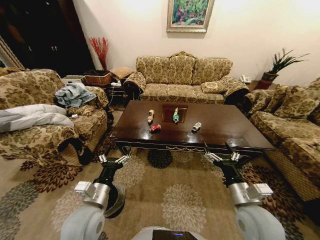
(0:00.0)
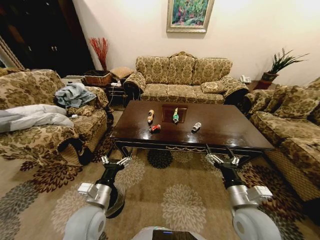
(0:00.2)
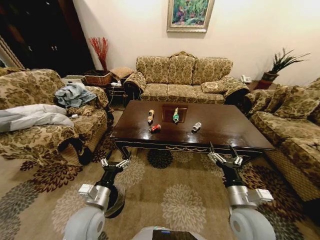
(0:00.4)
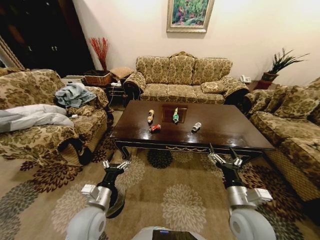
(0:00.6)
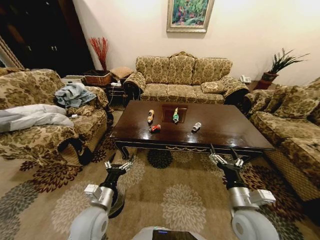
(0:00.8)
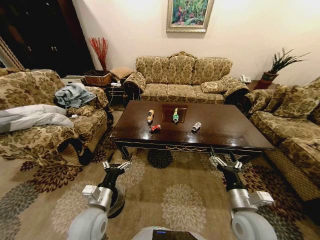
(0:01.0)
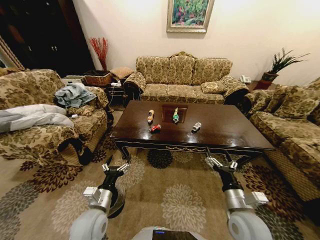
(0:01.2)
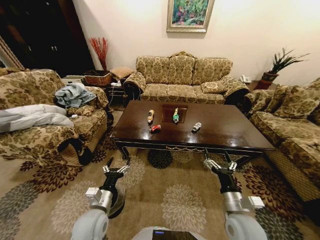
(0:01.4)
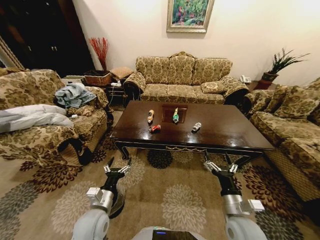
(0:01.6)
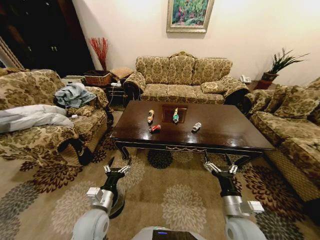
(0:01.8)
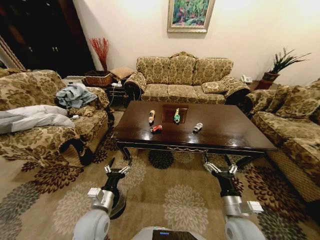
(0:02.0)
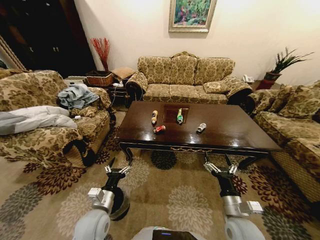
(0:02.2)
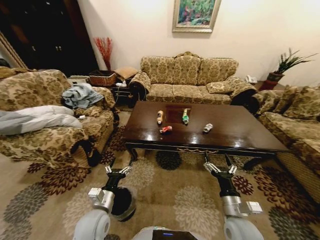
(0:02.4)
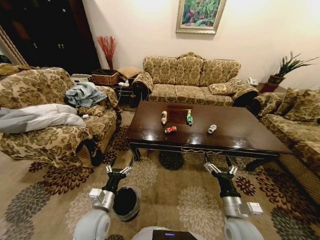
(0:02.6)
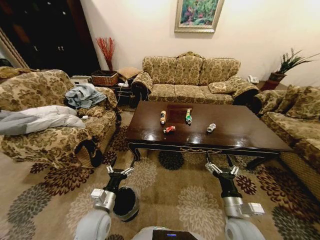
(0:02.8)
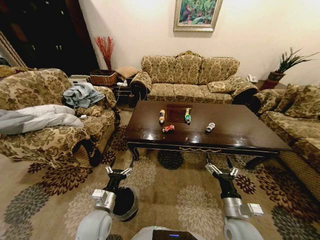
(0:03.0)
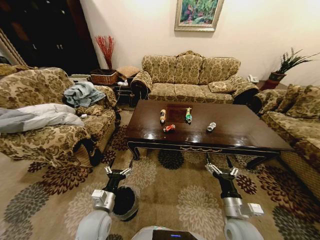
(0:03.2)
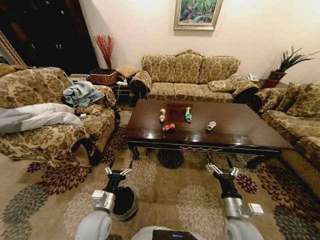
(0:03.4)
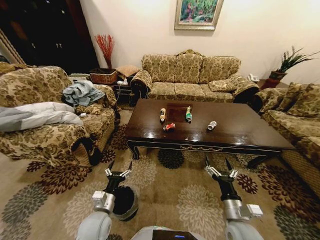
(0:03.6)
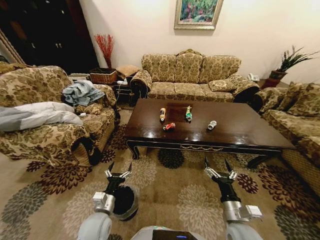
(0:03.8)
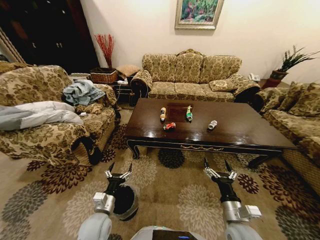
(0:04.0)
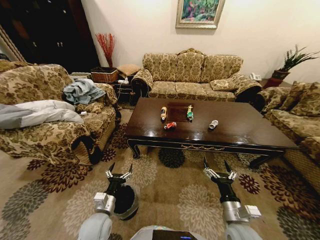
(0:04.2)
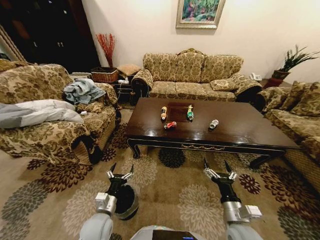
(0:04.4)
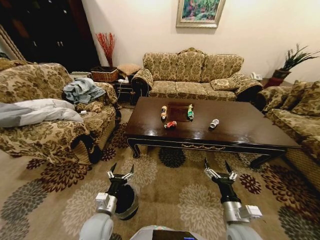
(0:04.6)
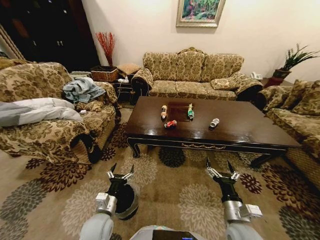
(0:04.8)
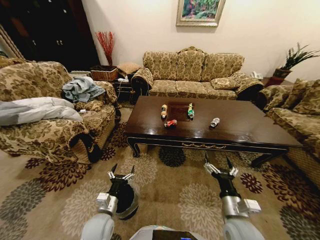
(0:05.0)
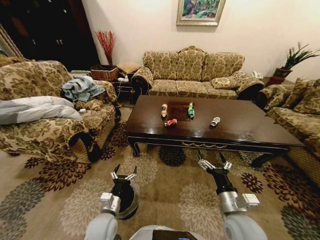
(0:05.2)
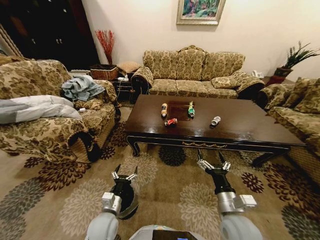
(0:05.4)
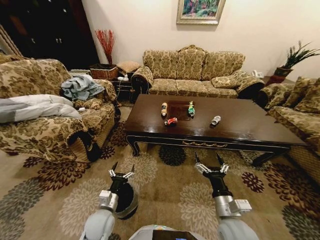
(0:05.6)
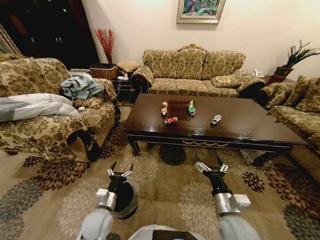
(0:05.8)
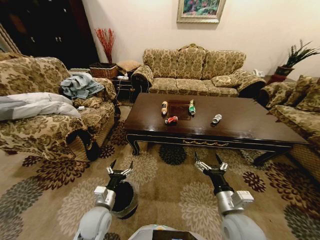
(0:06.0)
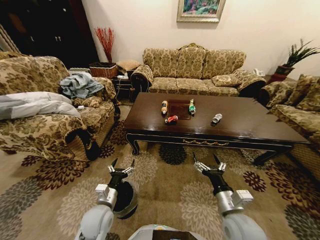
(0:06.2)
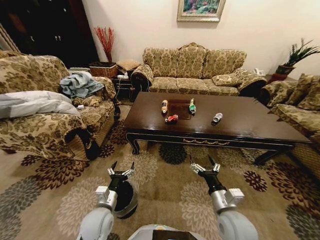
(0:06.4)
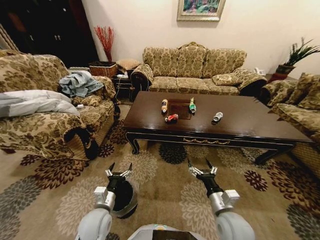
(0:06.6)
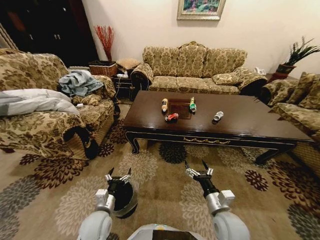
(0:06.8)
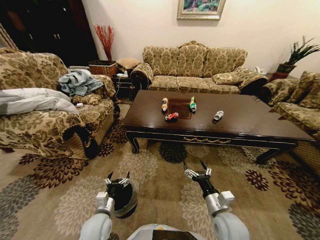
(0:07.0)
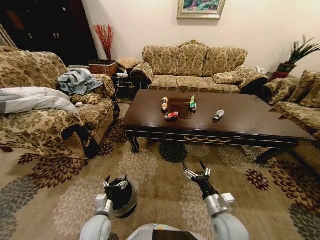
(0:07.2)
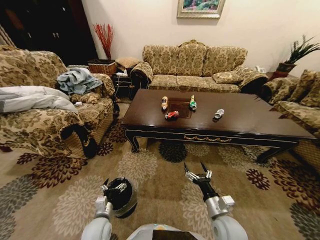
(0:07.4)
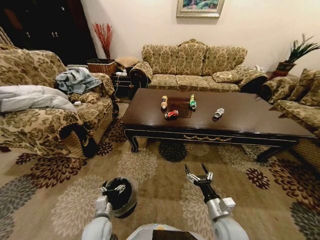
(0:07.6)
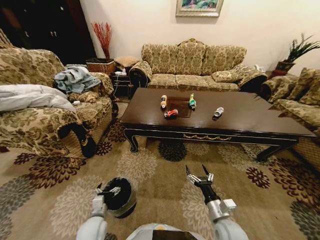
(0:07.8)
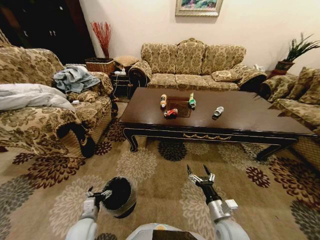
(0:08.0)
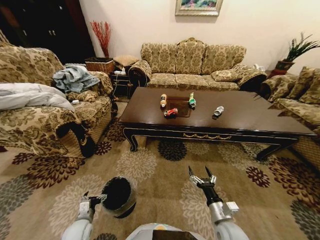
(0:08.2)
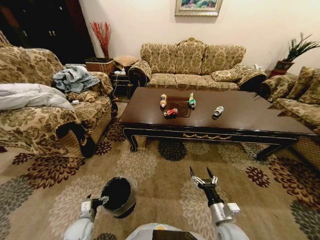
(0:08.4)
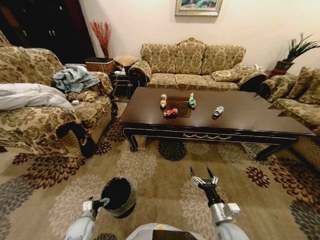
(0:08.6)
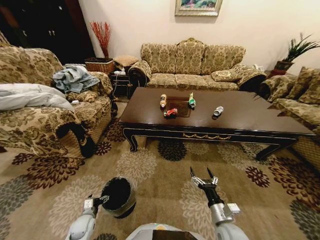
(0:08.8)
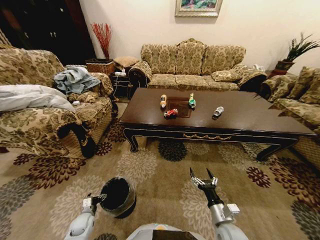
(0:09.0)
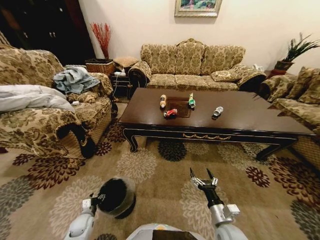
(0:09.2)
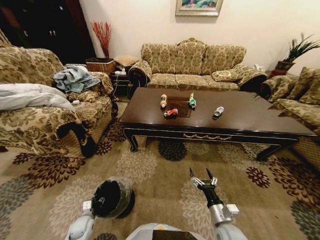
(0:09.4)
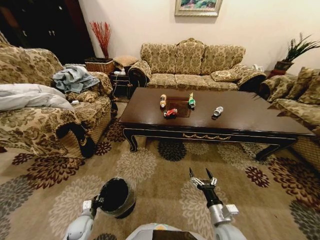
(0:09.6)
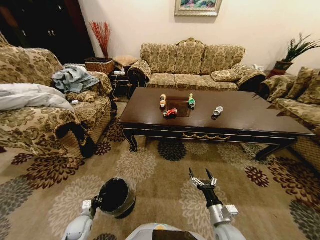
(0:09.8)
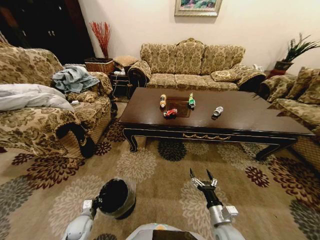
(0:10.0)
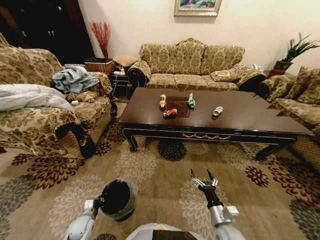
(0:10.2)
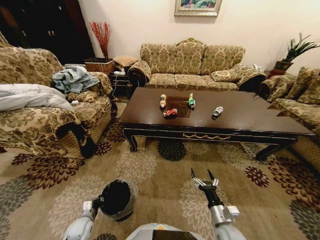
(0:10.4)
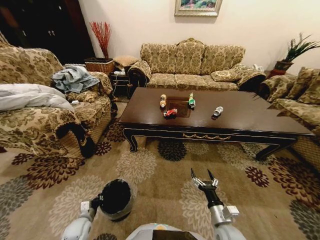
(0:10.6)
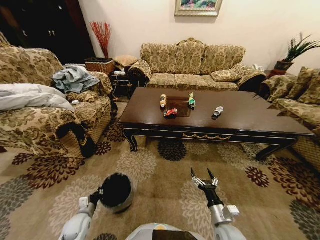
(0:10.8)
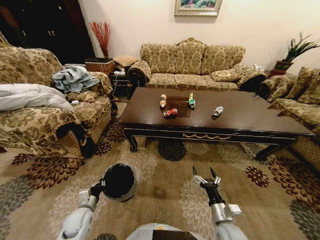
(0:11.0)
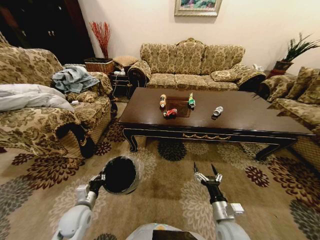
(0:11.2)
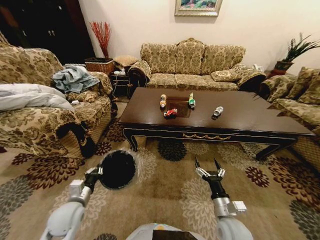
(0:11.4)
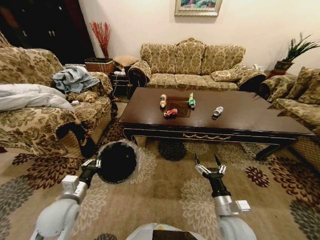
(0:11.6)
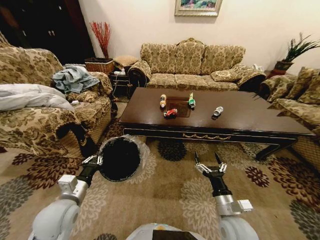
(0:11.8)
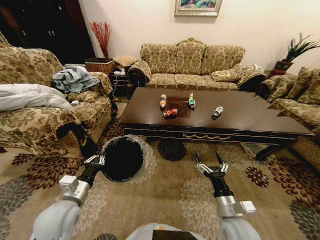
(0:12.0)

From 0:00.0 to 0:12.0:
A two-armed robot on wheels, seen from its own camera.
Task of the whole recording: Move to the front of the table and place the trash on the table into the trash bin.
From 0:04.4 to 0:06.0: The right gripper heads upward, covering approximately 5 cm.
From 0:06.0 to 0:07.6: The grippers both shift downward by about 10 cm.
From 0:07.6 to 0:09.0: The left gripper moves to the left and downward, about 20 cm.
From 0:09.0 to 0:10.4: The left gripper closes up.
From 0:10.4 to 0:12.0: The right gripper is displaced upward by some 10 cm, while the left gripper goes some 25 cm upward.

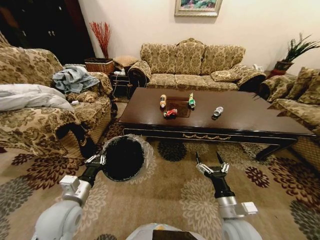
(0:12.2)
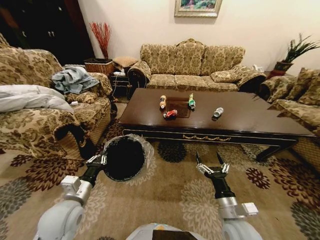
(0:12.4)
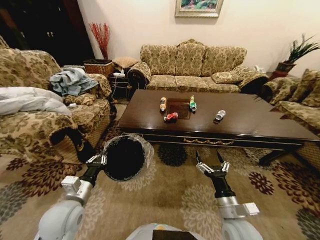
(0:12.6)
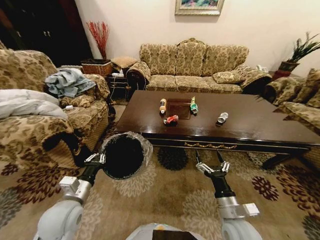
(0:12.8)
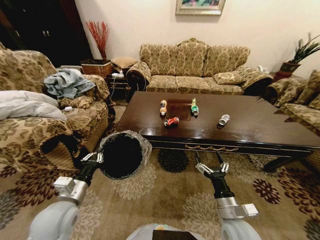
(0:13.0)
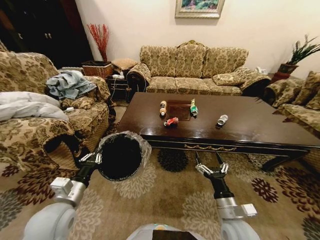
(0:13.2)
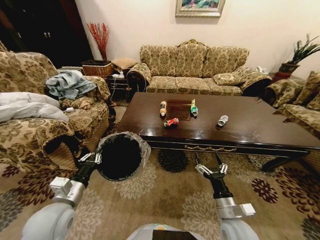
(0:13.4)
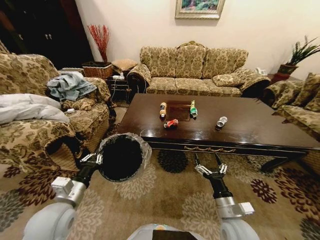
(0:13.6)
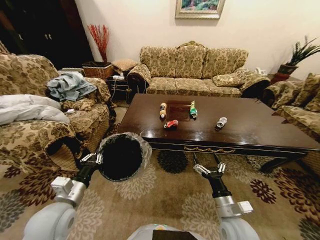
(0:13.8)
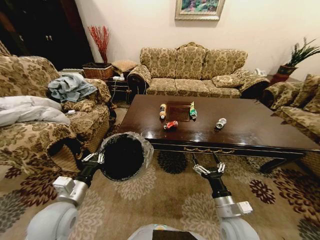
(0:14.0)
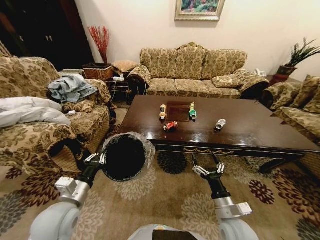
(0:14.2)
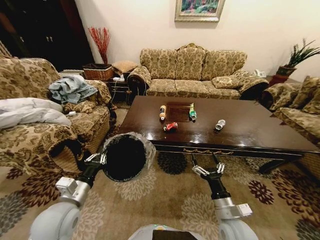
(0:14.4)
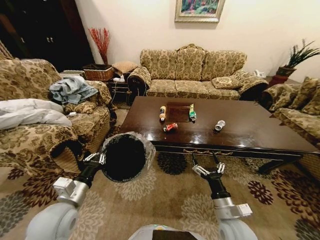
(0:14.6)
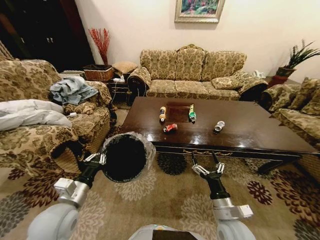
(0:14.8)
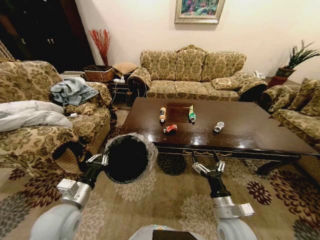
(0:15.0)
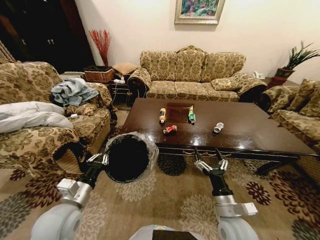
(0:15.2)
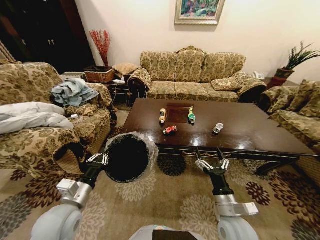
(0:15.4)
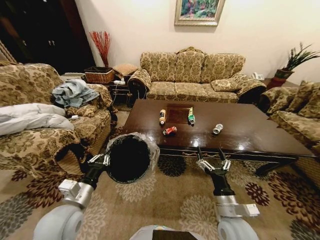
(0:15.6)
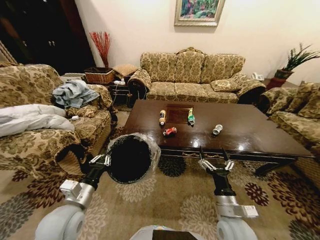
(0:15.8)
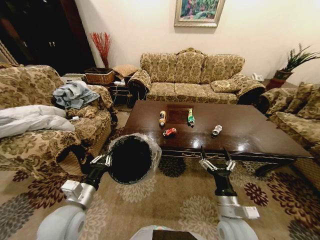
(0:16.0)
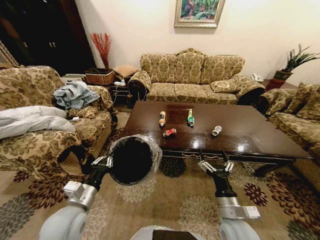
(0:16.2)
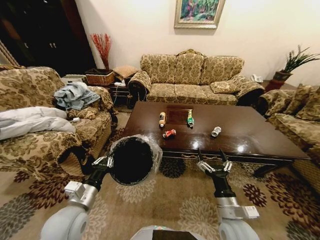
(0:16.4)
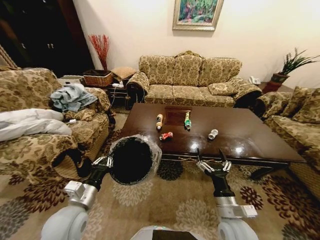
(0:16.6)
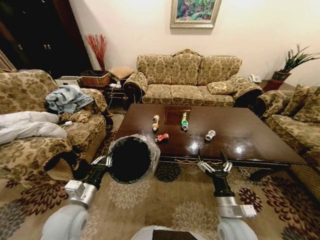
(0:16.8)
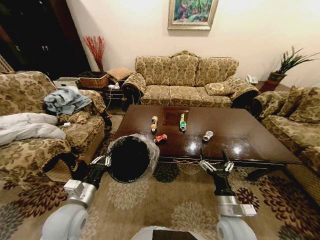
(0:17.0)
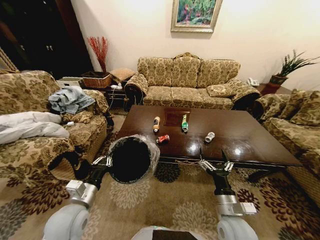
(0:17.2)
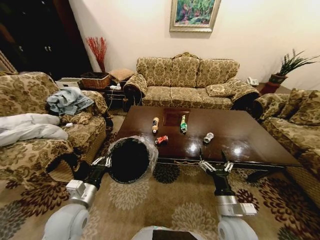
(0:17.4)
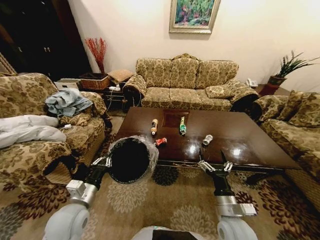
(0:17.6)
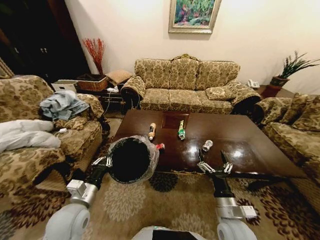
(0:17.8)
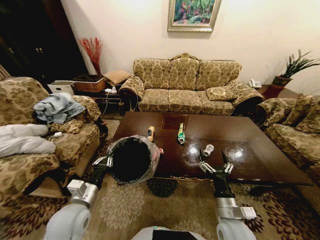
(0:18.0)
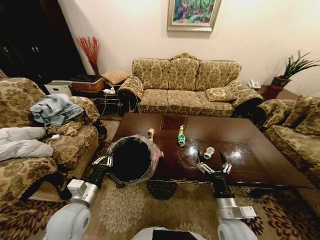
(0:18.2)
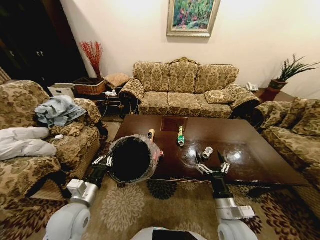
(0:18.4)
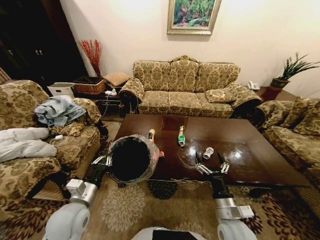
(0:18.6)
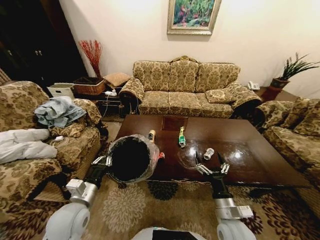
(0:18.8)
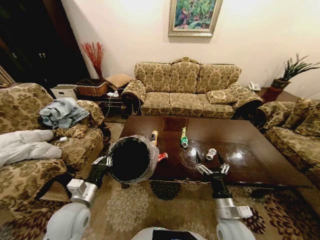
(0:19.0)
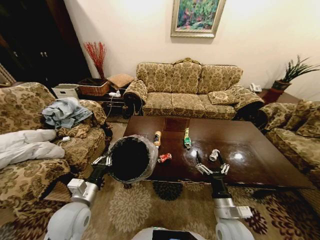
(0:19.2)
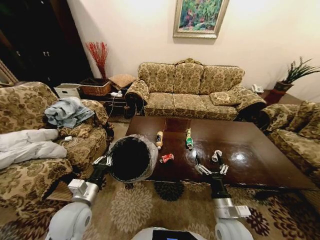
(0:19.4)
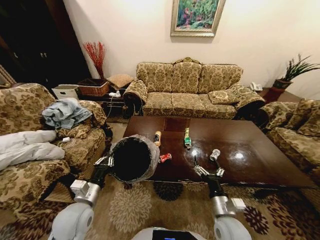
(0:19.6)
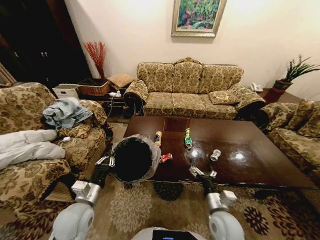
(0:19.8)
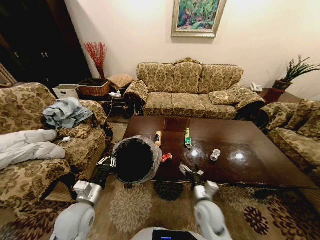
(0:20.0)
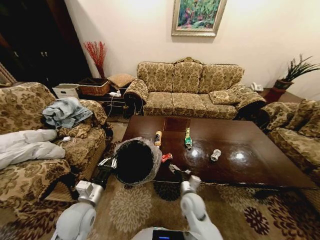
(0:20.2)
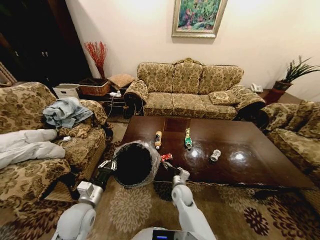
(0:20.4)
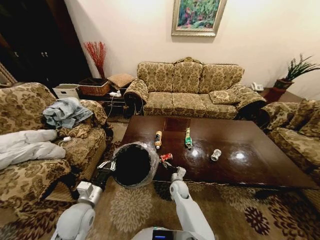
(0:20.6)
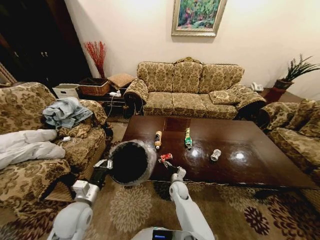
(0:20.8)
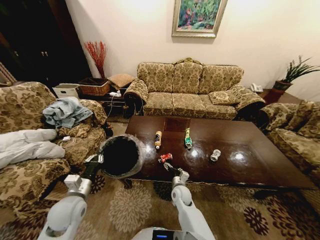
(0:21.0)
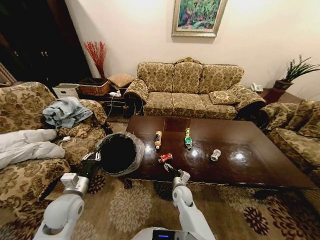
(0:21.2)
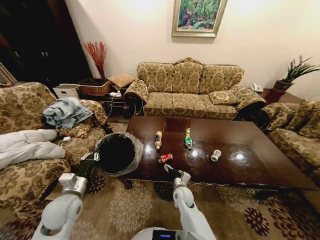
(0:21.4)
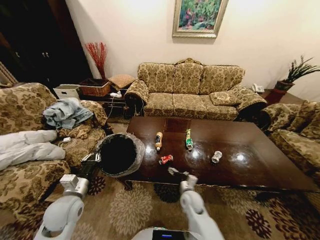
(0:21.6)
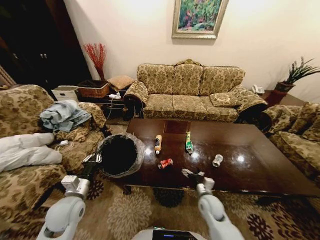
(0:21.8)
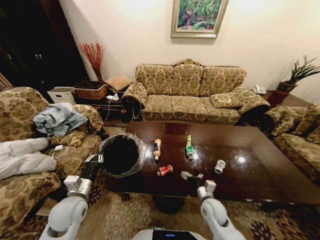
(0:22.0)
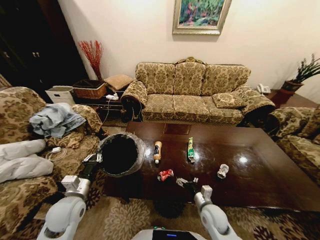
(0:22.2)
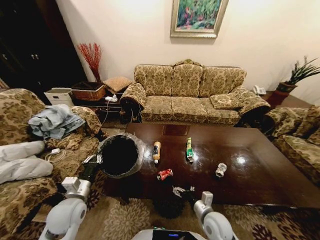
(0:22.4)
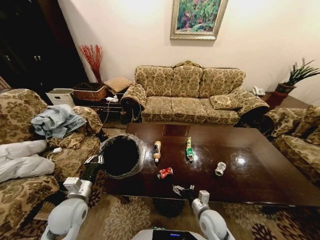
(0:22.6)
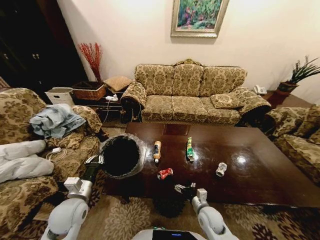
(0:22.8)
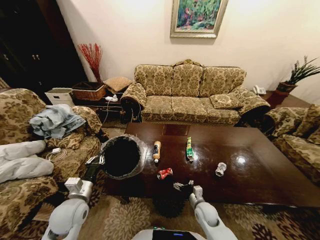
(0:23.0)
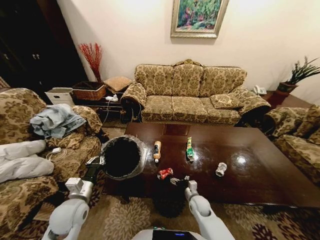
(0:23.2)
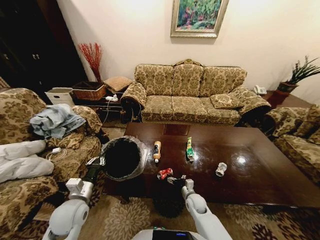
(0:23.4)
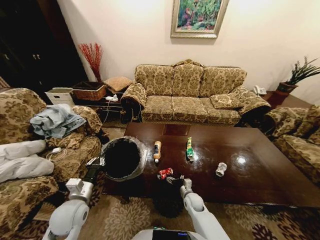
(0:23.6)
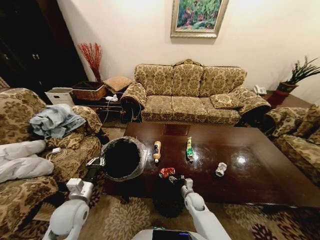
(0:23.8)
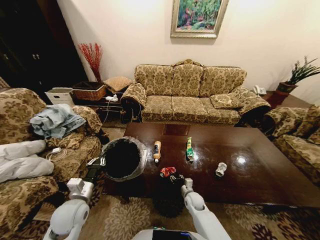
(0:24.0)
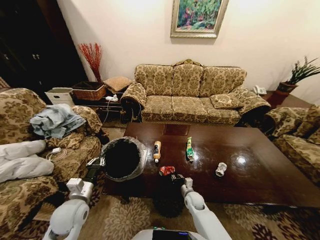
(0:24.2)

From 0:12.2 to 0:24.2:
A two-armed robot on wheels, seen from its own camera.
Task of the whole recording: Move to the front of the table and place the trash on the table into the trash bin.
From 0:19.8 to 0:21.2: The left gripper travels to the left by about 5 cm. Meanwhile the right gripper heads forward, downward and to the left, covering about 20 cm.
From 0:21.2 to 0:22.6: The right gripper moves backward and to the right, roughly 15 cm.
From 0:22.6 to 0:24.2: The right gripper shifts approximately 15 cm downward and forward, and closes its fingers.
